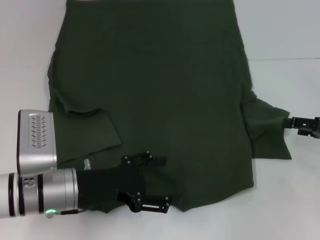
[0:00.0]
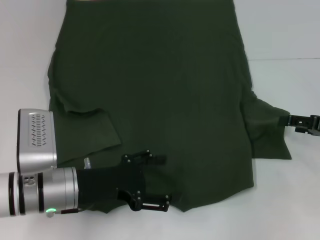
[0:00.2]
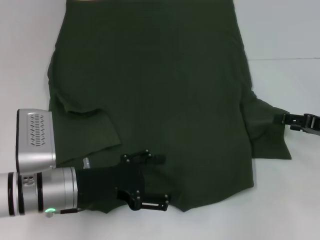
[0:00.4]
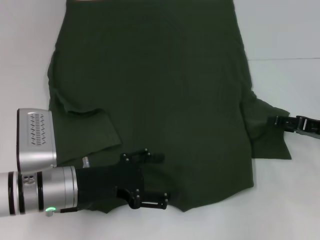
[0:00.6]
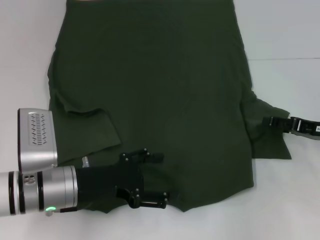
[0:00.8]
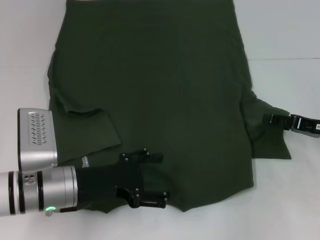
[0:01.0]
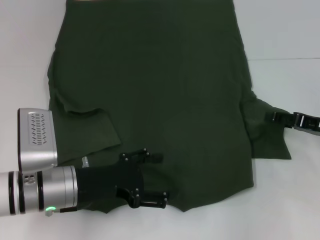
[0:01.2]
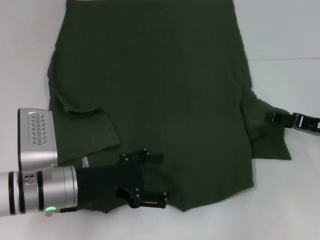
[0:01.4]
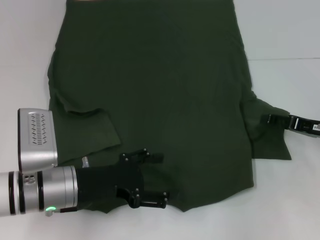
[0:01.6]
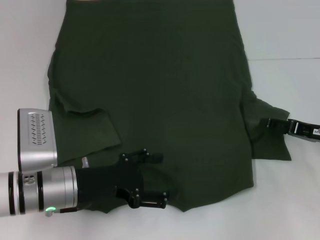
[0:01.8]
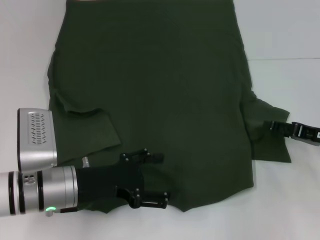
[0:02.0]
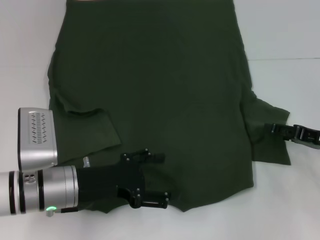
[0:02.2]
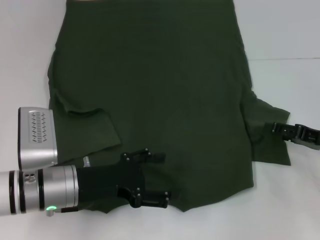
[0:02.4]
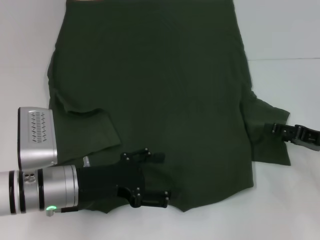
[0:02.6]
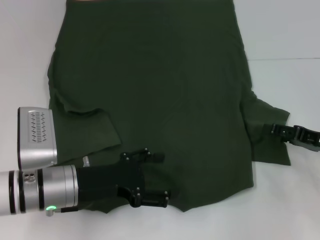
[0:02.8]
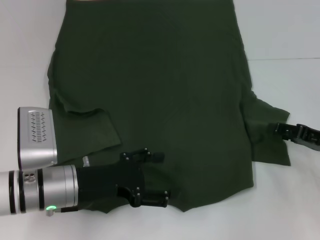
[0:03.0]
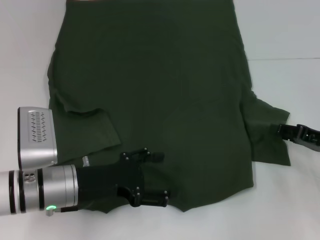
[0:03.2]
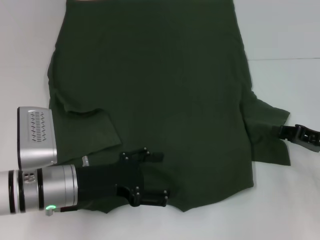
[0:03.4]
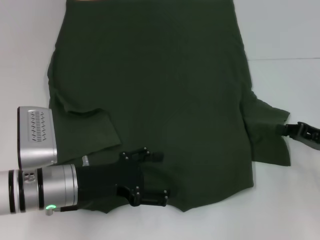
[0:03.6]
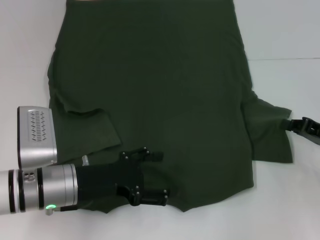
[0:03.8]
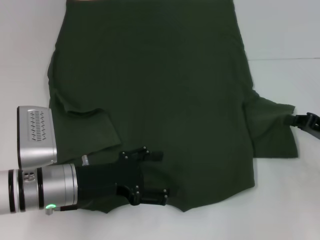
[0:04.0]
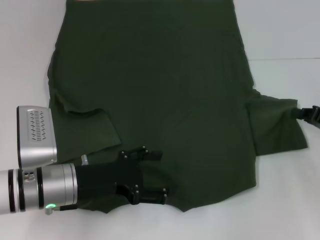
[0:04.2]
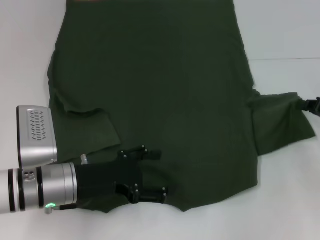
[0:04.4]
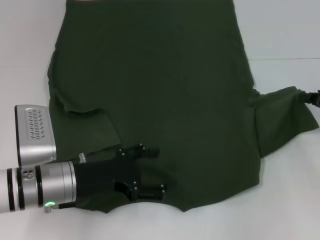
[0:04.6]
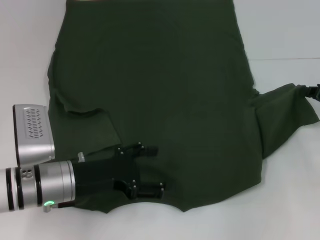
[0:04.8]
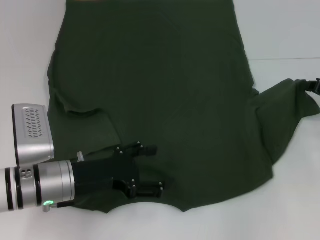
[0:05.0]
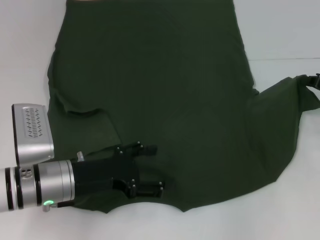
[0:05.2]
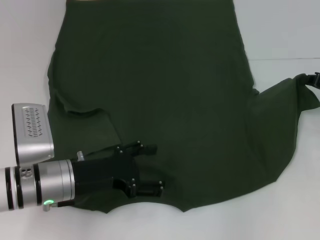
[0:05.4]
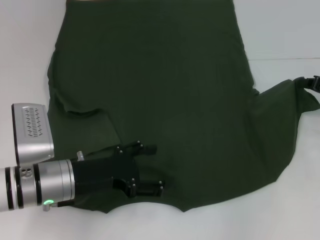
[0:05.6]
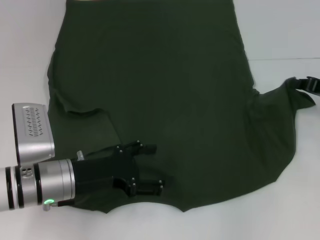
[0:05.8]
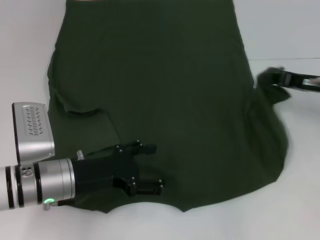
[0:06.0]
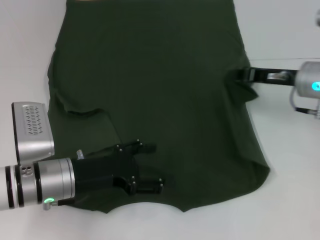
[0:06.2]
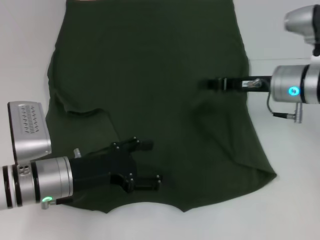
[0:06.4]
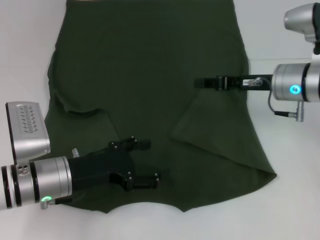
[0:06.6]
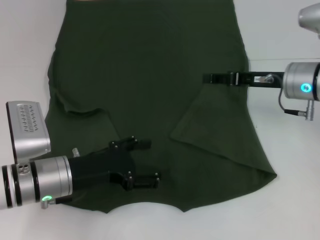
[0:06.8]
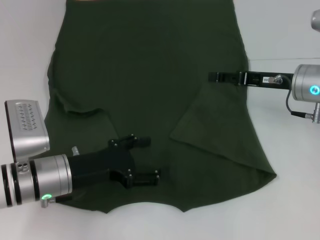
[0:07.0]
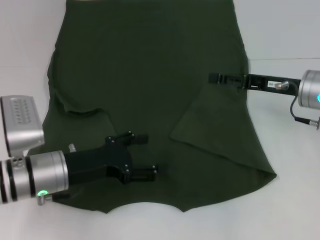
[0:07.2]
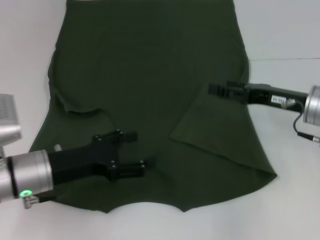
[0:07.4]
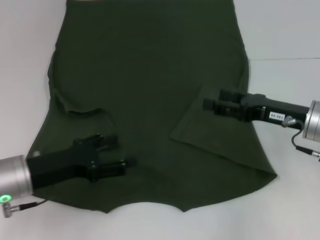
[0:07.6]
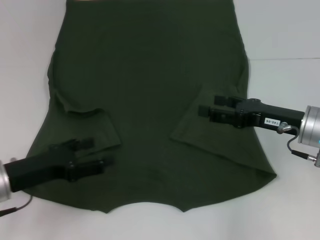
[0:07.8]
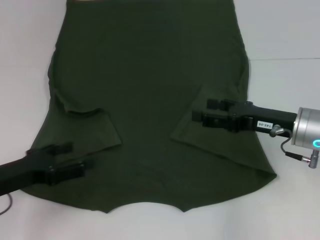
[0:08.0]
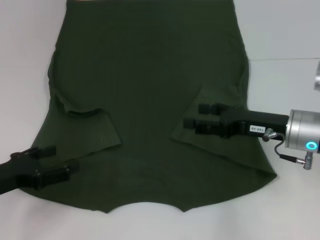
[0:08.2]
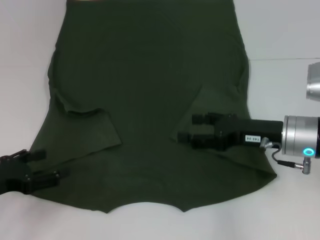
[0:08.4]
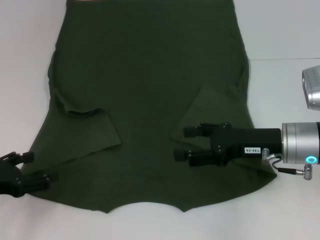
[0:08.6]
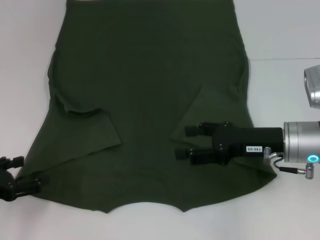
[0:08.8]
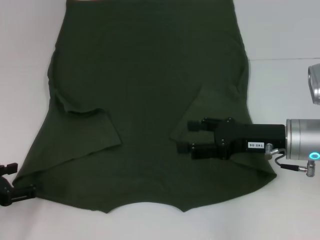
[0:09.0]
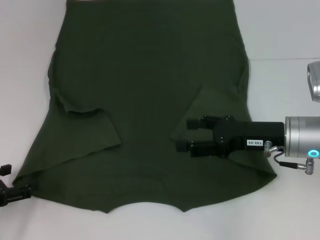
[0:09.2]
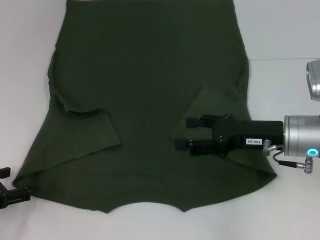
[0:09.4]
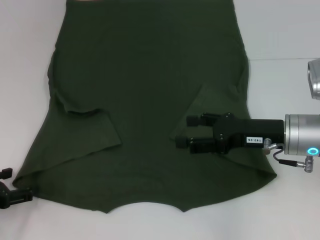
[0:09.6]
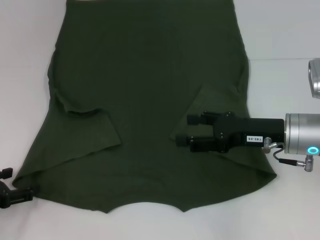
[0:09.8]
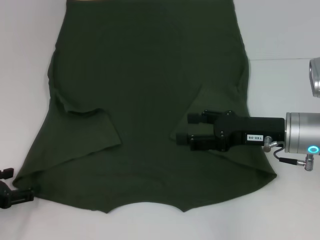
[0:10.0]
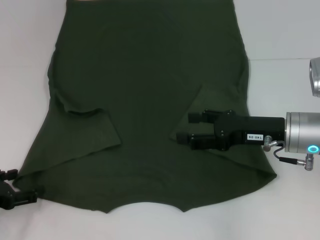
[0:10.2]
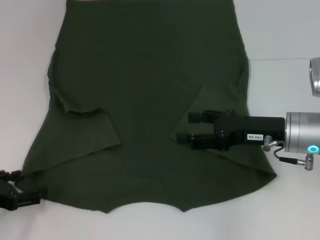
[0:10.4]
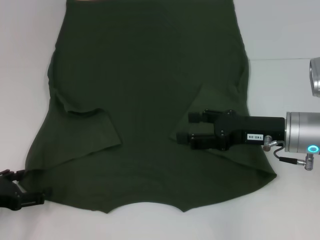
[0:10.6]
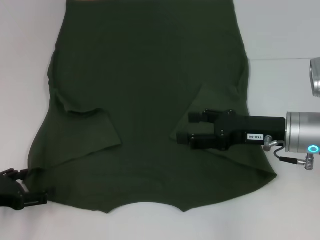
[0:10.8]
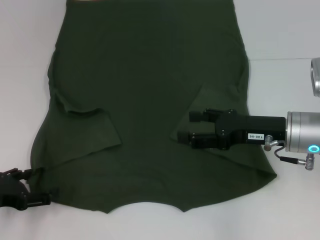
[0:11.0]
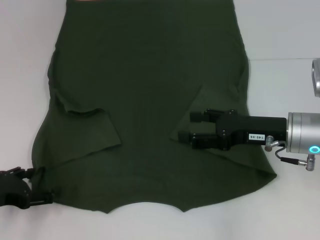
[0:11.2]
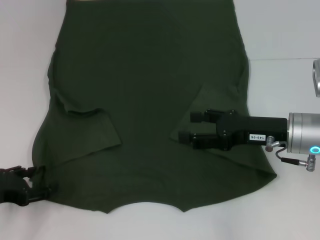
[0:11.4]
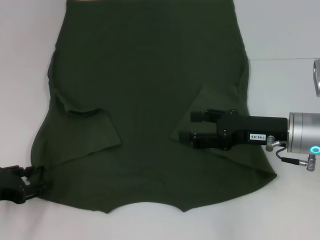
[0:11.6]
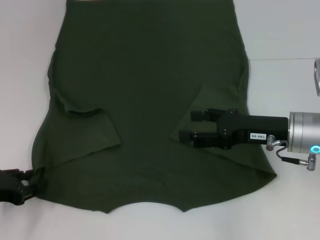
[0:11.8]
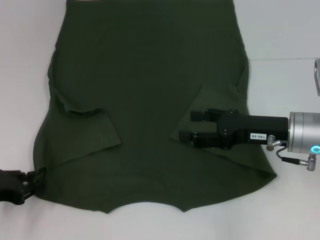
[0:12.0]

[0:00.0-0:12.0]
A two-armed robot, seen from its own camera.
Step, 0:00.0 to 0:07.2: Fold the bottom right sleeve with your right hand.
0:00.0 to 0:03.0: The grippers make only small movements.
0:03.0 to 0:04.4: The right gripper closes up.
0:04.4 to 0:06.0: The right gripper is displaced forward and to the left by some 10 cm.
0:06.0 to 0:07.6: The left gripper shifts some 5 cm to the left; the right gripper heads backward, covering some 5 cm, and opens up.
0:07.6 to 0:09.0: The left gripper shifts about 10 cm to the left.
0:09.0 to 0:10.4: The two grippers keep their place.
0:10.4 to 0:12.0: The left gripper closes its fingers.

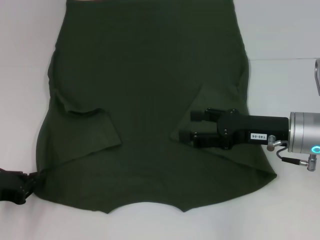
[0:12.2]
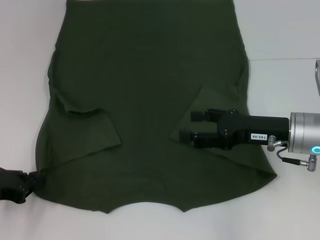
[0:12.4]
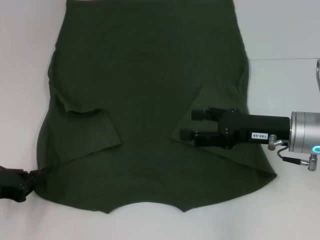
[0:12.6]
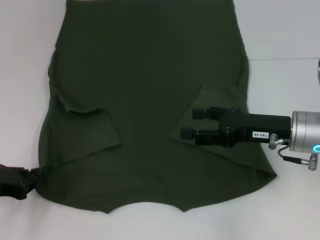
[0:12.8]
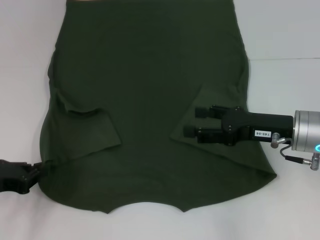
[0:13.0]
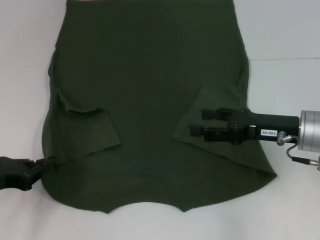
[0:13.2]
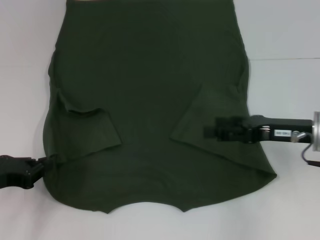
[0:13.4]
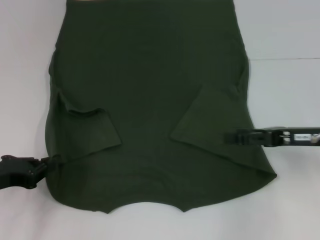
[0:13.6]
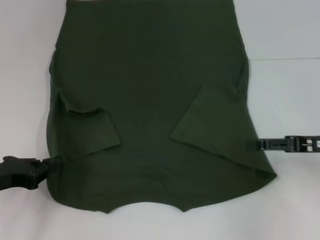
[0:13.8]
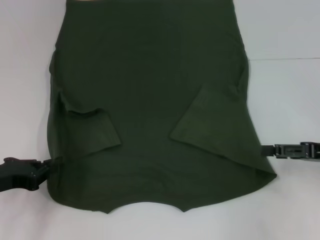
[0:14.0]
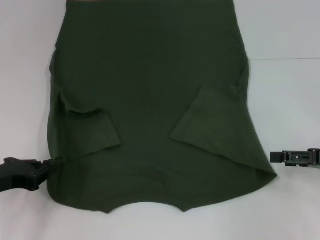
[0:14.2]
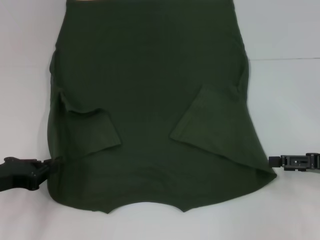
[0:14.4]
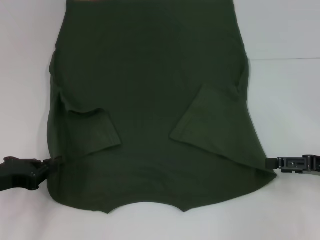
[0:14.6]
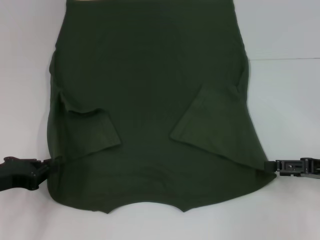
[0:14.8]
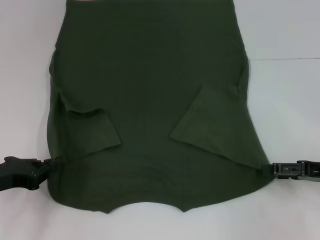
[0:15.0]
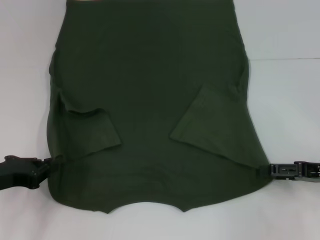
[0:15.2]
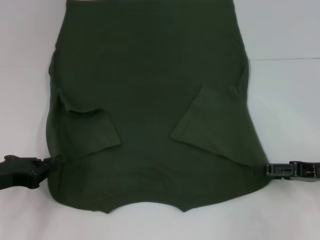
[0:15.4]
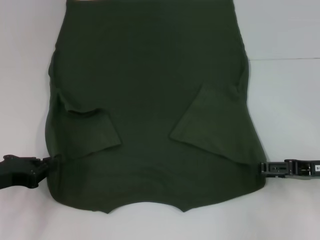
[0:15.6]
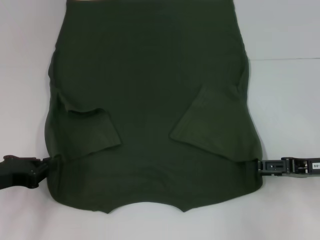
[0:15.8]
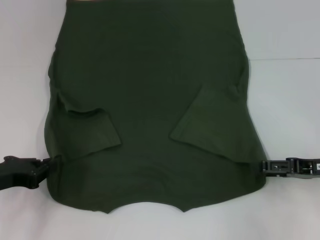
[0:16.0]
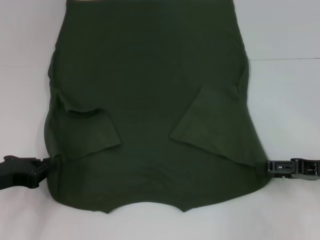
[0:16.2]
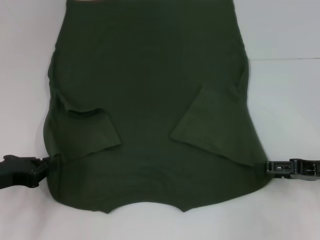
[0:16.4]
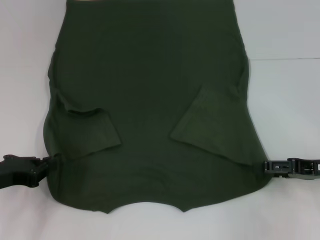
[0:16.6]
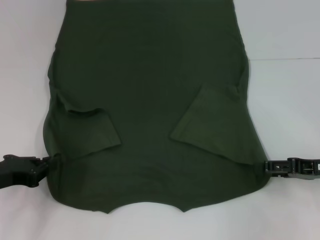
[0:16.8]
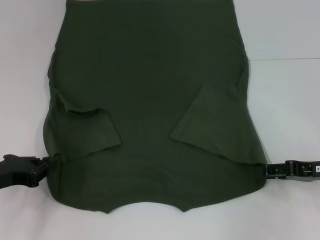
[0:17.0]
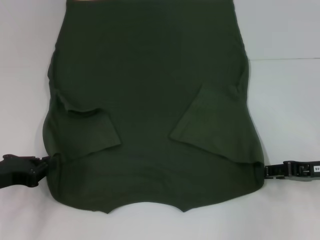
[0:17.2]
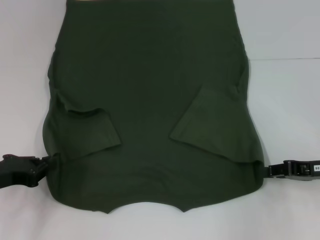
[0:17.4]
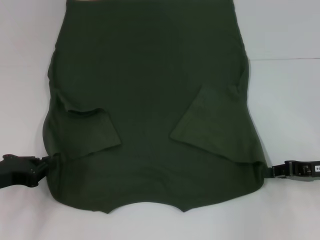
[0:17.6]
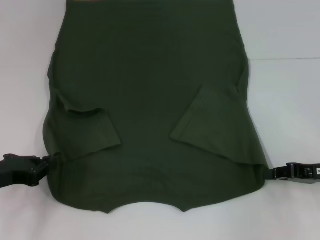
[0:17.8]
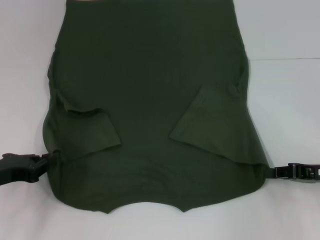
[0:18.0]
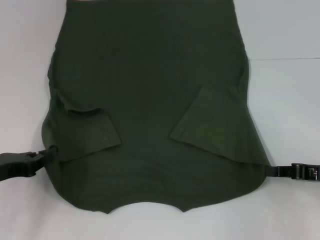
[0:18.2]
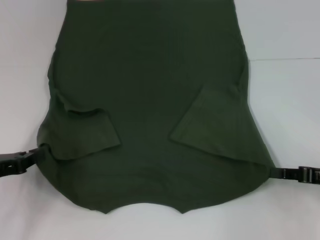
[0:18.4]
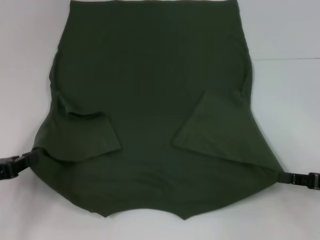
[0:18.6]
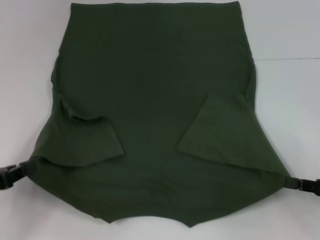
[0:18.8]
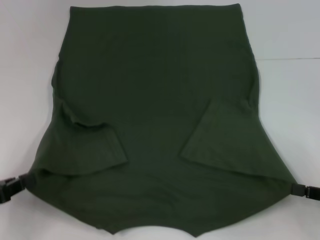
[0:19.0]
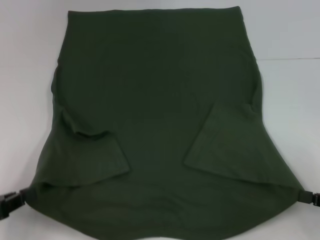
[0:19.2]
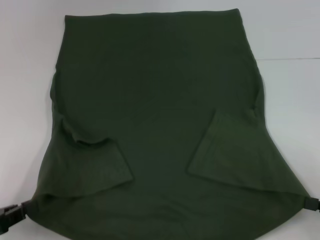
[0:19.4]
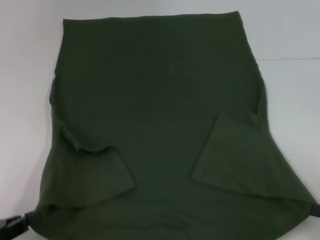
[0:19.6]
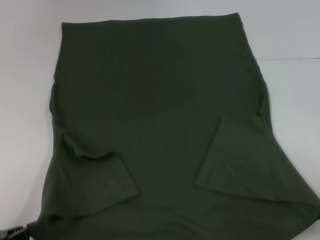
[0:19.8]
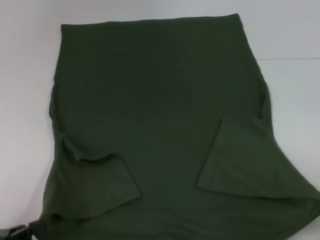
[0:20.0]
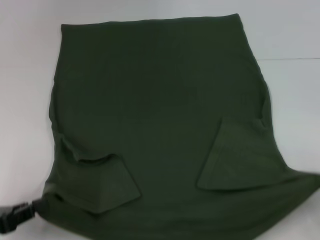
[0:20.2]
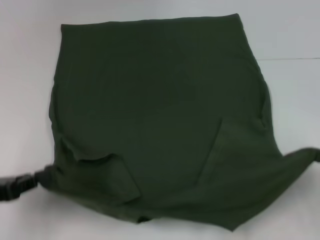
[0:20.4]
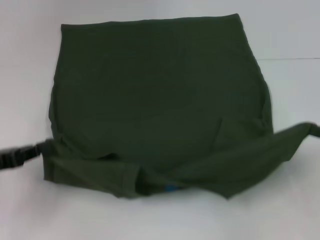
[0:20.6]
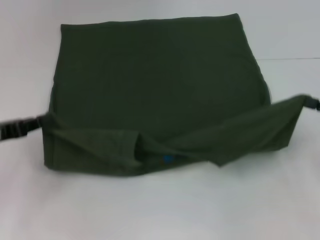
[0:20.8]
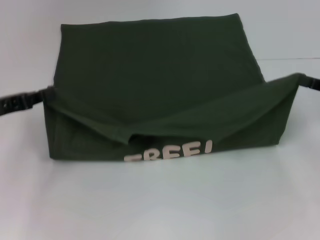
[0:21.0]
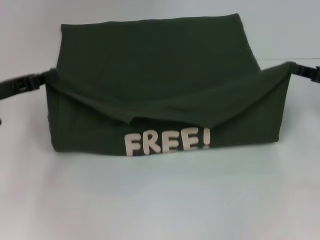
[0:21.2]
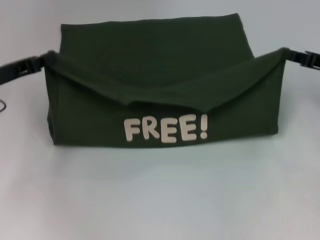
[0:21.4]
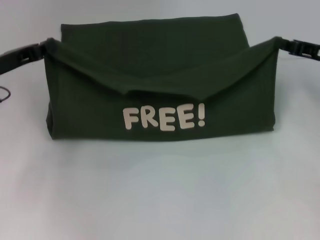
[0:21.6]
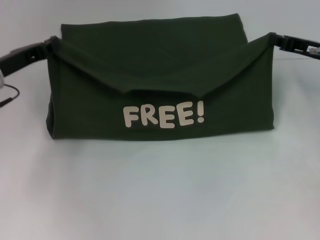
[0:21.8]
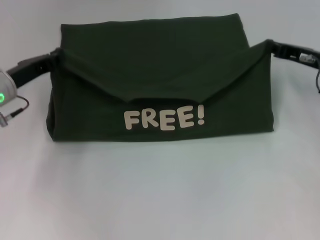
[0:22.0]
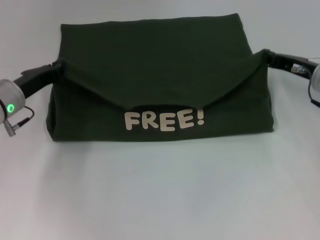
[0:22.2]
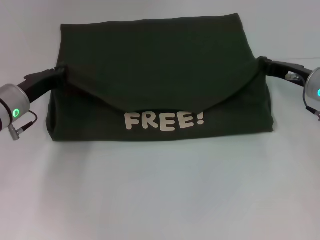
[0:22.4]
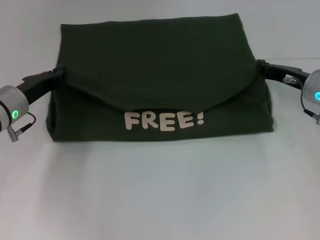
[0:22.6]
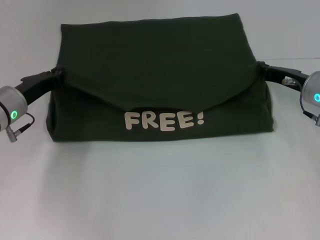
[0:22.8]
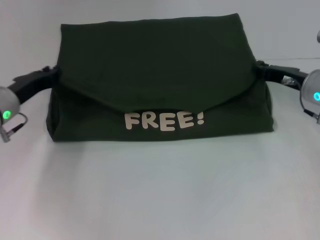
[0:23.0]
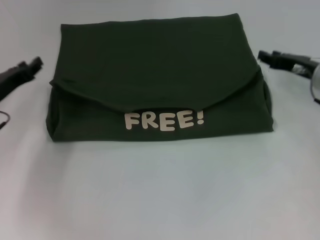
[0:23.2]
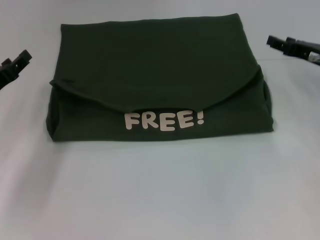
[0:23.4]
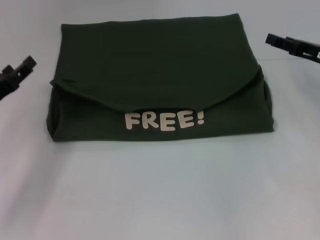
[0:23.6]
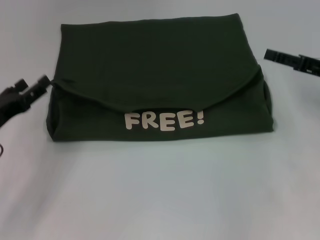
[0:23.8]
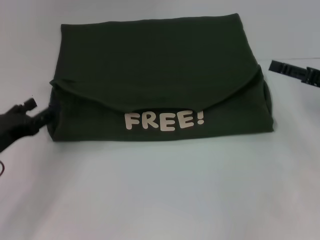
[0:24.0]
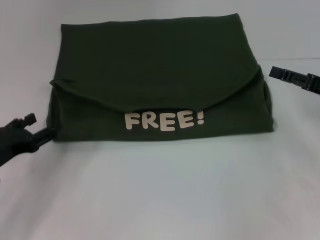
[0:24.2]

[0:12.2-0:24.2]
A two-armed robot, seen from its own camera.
Step, 0:12.8 to 0:17.4: Grab the bottom right corner with your right hand.
Step, 0:17.6 to 0:23.4: Fold the clothes with your left hand.
Step, 0:17.6 to 0:23.4: Fold the clothes with your right hand.
0:12.2 to 0:13.8: The right gripper moves to the right, approximately 10 cm.
0:13.8 to 0:16.6: The grippers stay close to where they were, moving slightly.
0:16.6 to 0:18.2: The right gripper closes up.
0:18.2 to 0:19.8: The left gripper shifts some 10 cm backward. Meanwhile the right gripper moves backward and to the right, approximately 15 cm.
0:19.8 to 0:21.2: The grippers both shift forward by approximately 20 cm.
0:21.2 to 0:22.6: The left gripper travels to the right and downward by approximately 10 cm. The right gripper heads to the left and forward, covering about 10 cm.
0:22.6 to 0:24.2: The left gripper moves backward and to the left, approximately 15 cm, and opens. The right gripper moves backward and to the right, approximately 10 cm, and opens up.
